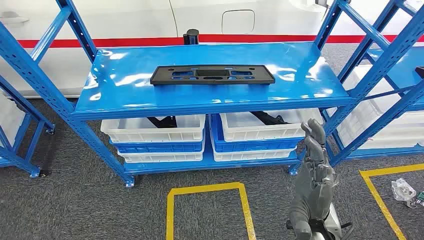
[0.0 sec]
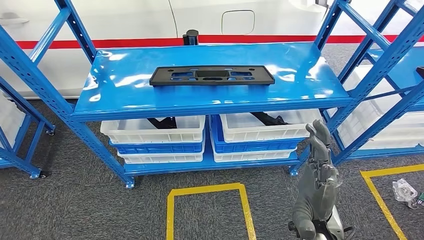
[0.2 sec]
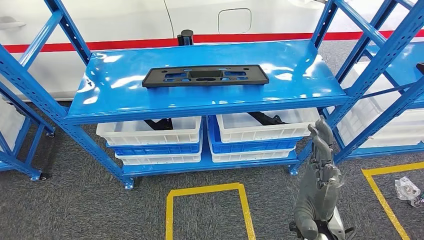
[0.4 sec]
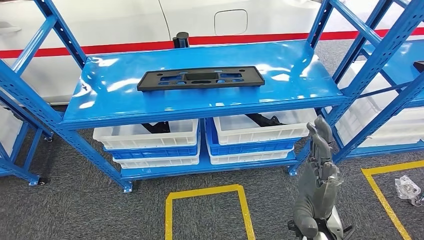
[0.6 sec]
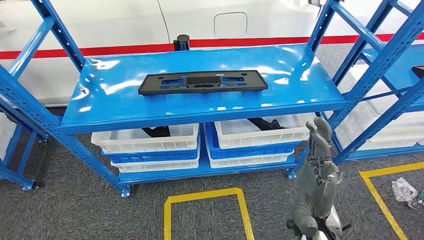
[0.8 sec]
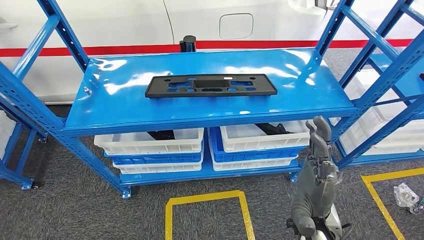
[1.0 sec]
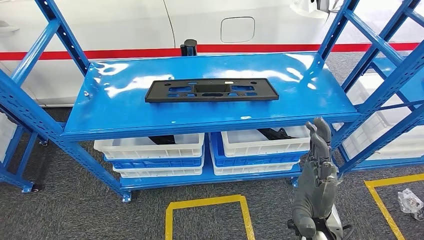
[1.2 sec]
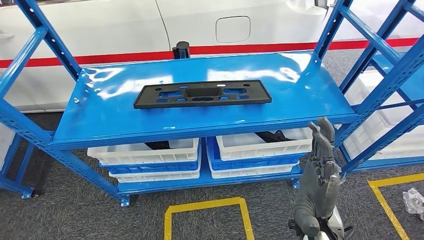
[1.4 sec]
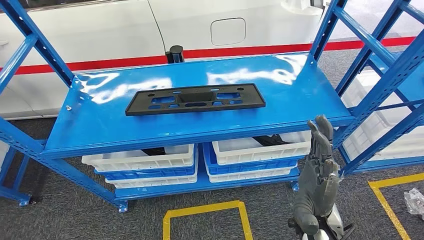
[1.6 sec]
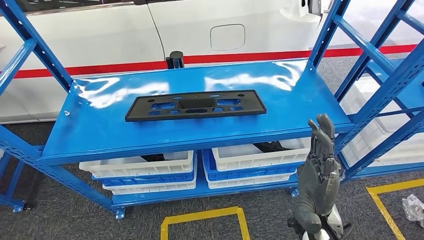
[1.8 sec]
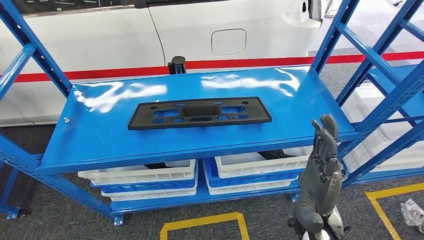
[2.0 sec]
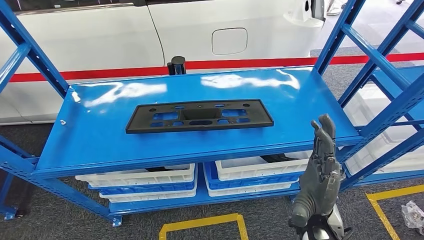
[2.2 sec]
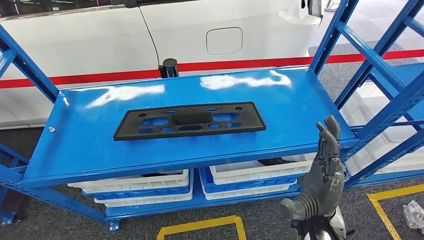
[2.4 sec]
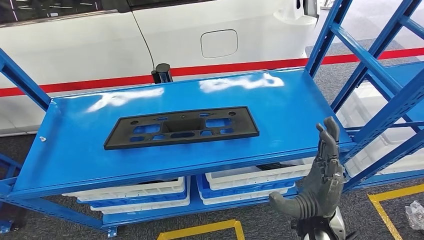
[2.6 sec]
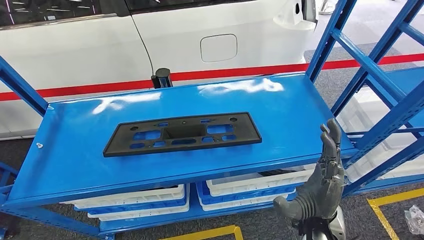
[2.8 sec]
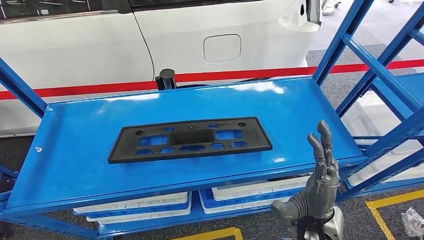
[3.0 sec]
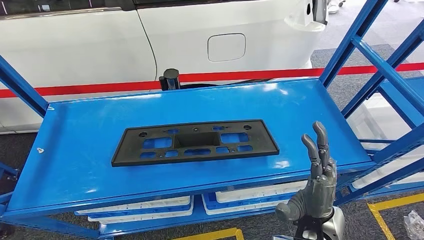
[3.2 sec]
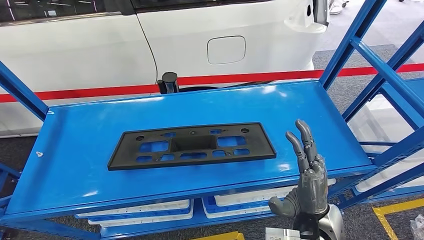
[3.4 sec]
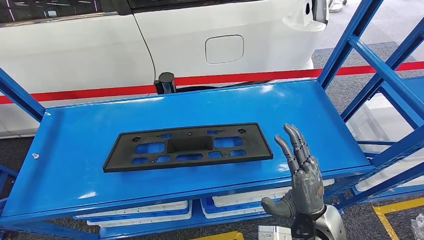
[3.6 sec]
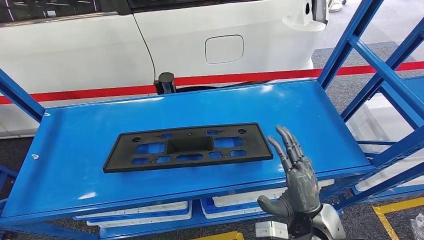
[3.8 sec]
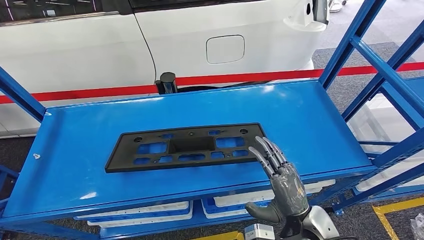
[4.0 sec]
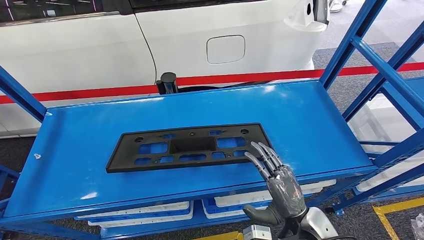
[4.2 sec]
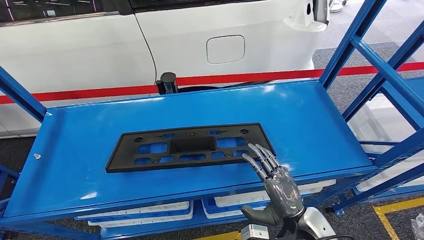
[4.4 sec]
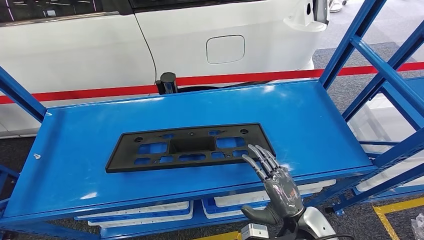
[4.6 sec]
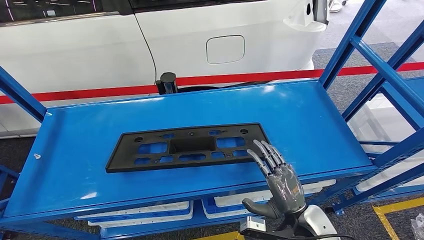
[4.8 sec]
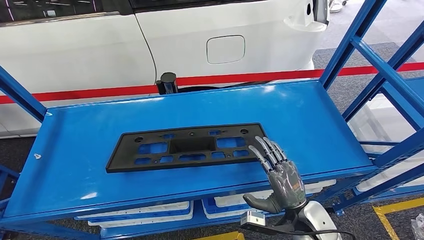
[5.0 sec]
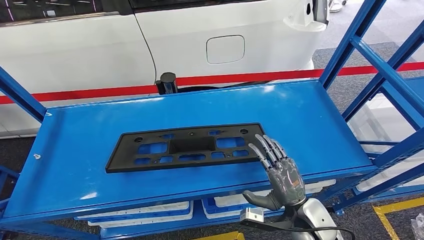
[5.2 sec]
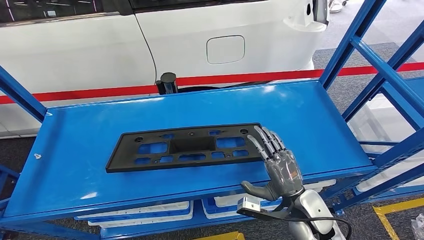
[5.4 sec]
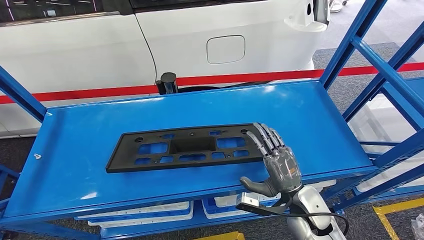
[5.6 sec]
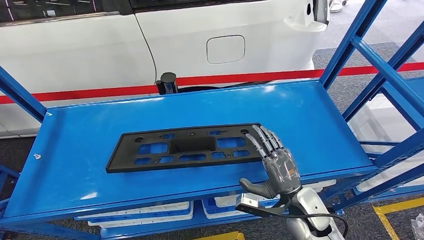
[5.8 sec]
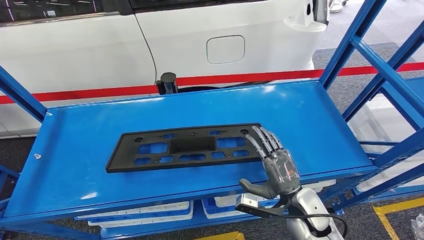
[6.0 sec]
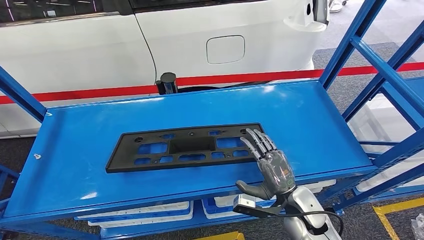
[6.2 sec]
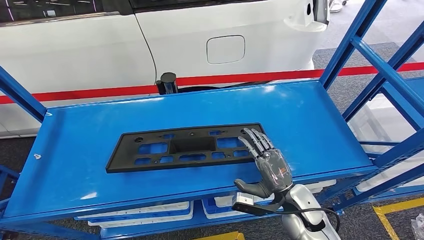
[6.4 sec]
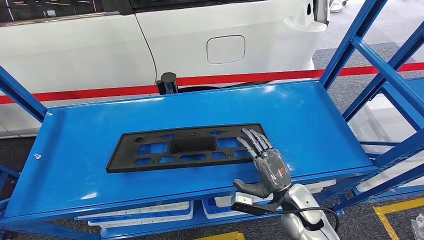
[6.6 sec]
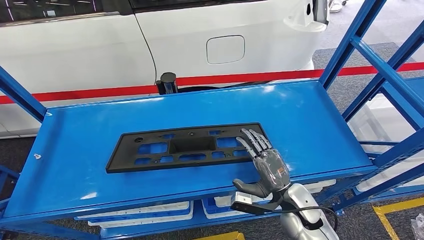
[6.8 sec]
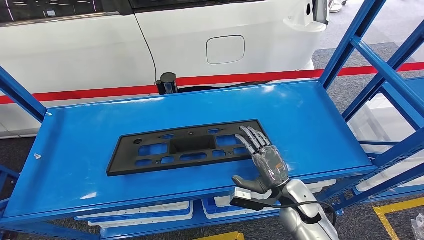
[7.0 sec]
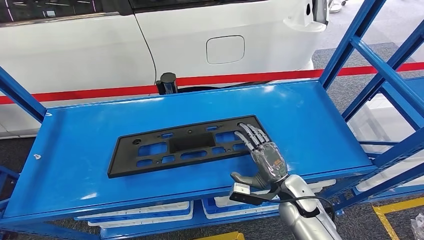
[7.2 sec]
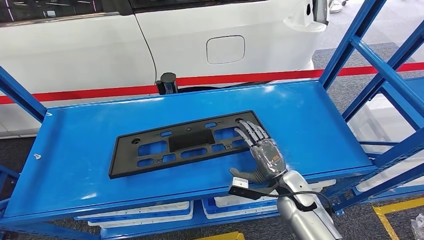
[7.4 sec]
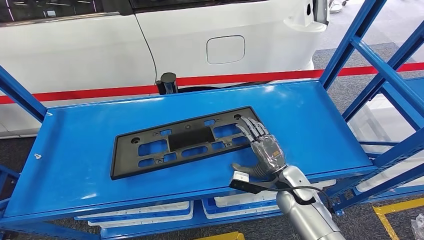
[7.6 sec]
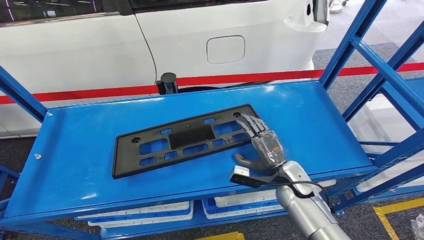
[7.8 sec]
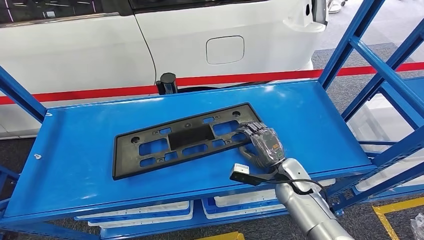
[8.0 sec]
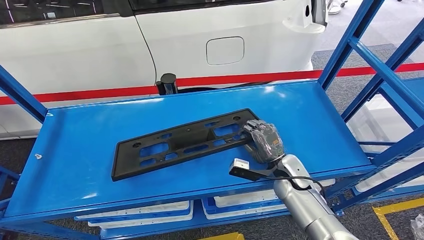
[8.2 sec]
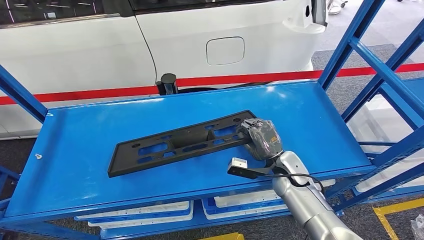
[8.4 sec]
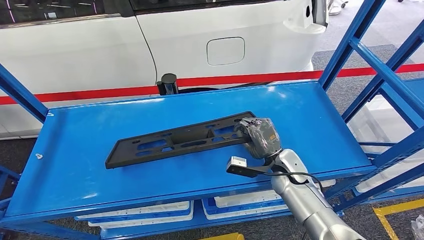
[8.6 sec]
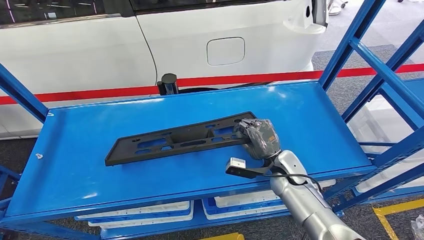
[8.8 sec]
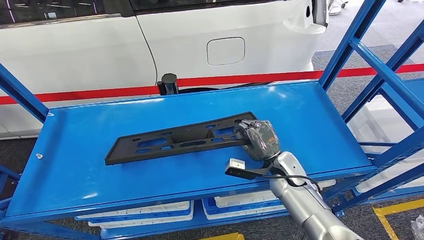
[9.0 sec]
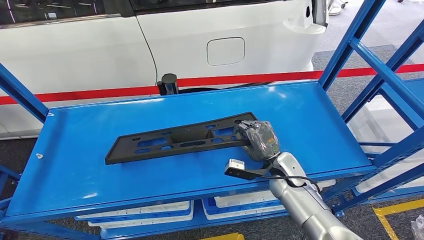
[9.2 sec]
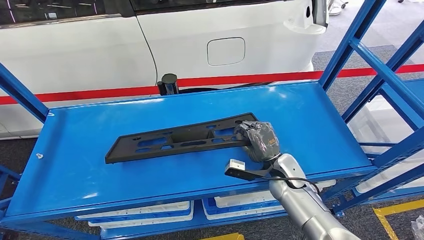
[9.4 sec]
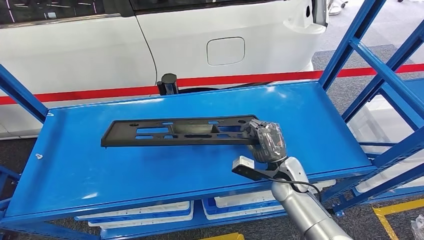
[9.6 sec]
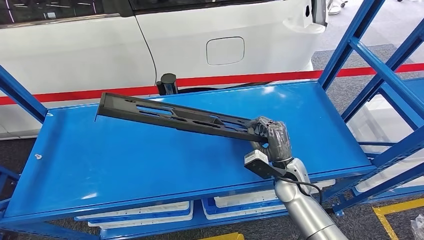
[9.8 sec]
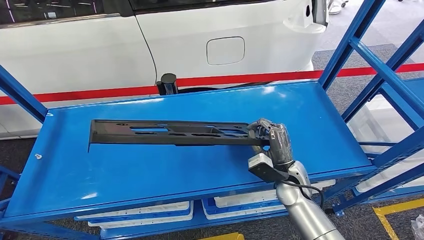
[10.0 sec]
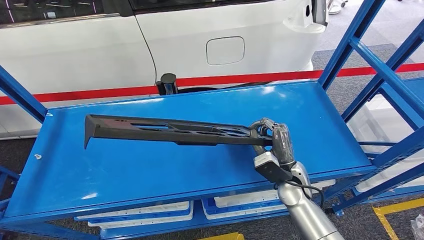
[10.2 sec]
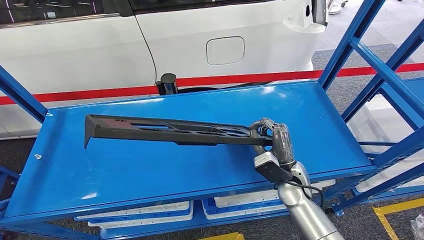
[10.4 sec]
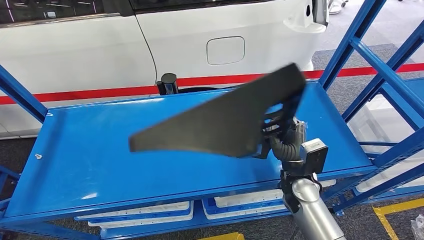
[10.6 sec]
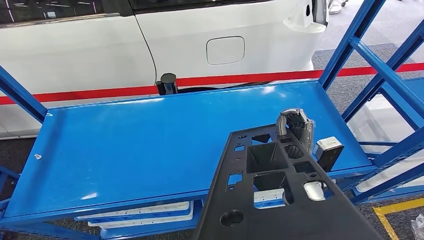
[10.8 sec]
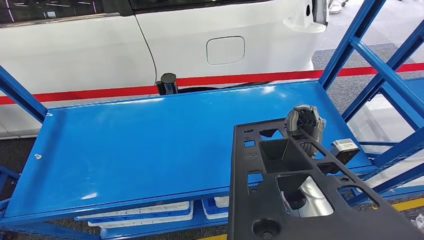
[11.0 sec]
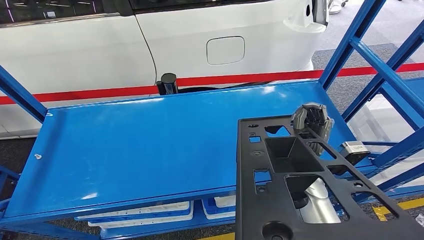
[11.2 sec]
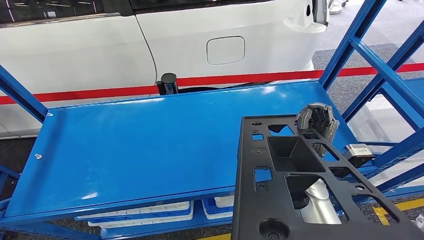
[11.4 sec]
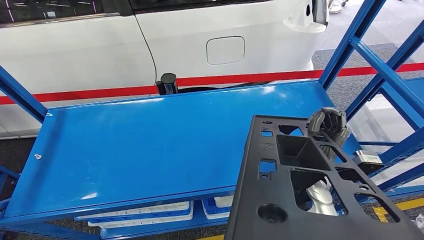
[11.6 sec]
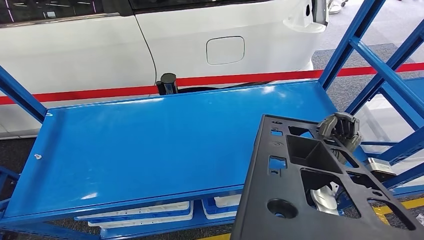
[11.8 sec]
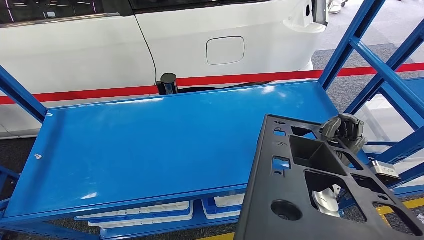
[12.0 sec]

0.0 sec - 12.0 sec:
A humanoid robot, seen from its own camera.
4.4 sec - 6.0 sec: The right hand is displaced forward by about 5 cm.
6.0 sec - 7.6 sec: The right hand shifts some 5 cm forward.
7.6 sec - 9.0 sec: The hands move only a little.
10.4 sec - 12.0 sec: The right hand shifts by approximately 5 cm.

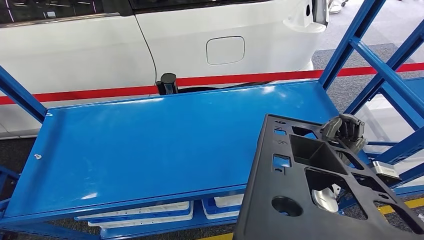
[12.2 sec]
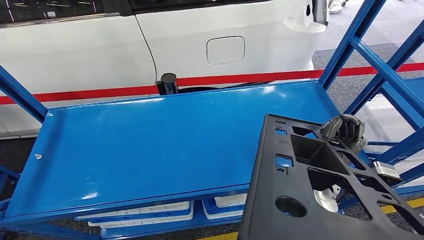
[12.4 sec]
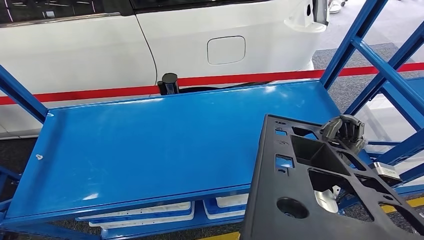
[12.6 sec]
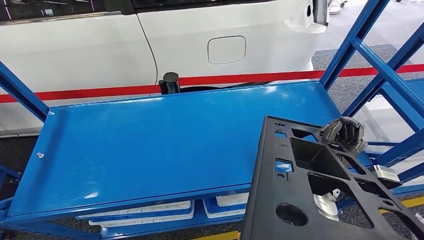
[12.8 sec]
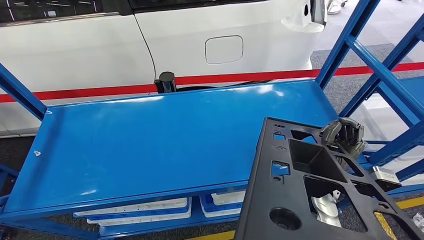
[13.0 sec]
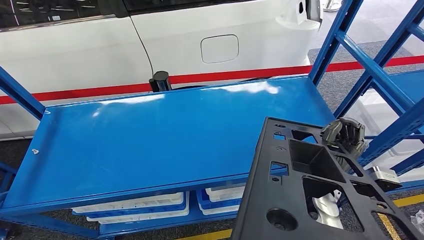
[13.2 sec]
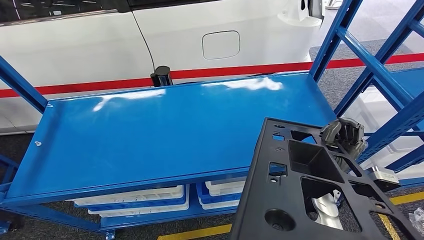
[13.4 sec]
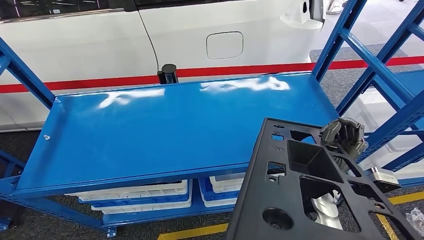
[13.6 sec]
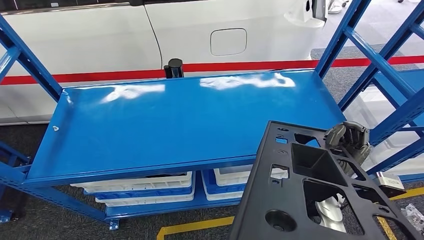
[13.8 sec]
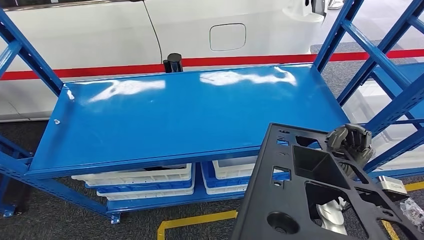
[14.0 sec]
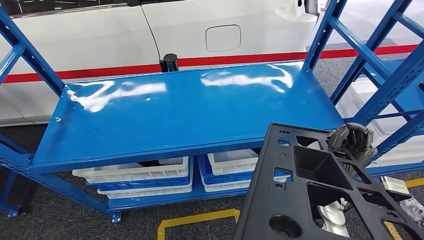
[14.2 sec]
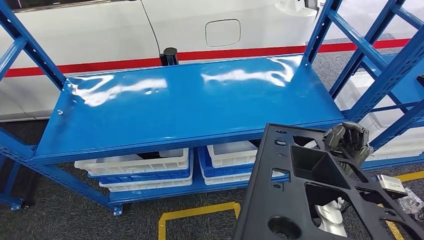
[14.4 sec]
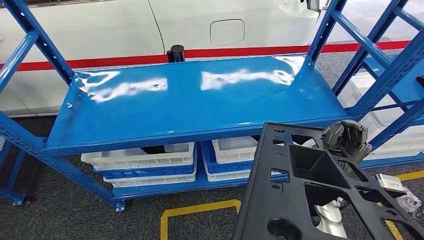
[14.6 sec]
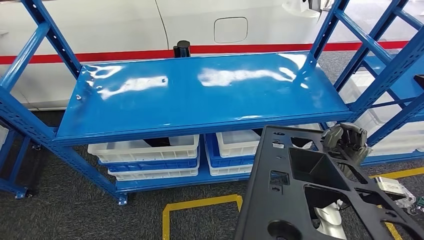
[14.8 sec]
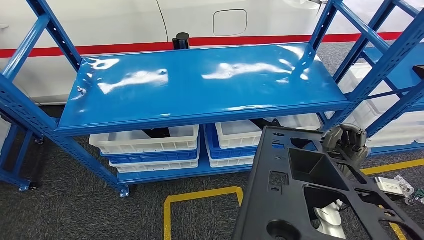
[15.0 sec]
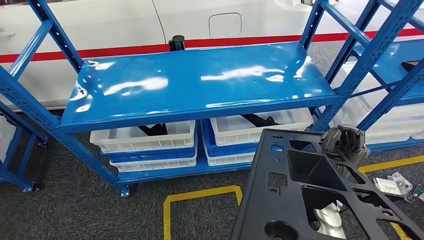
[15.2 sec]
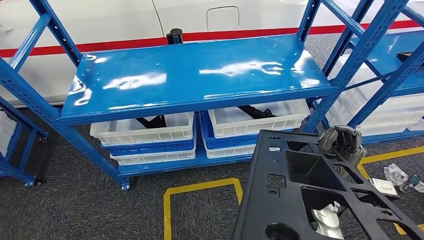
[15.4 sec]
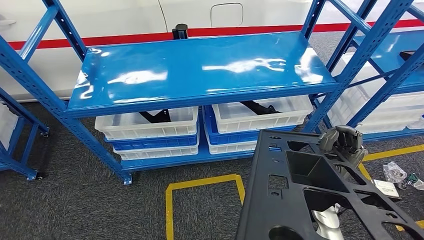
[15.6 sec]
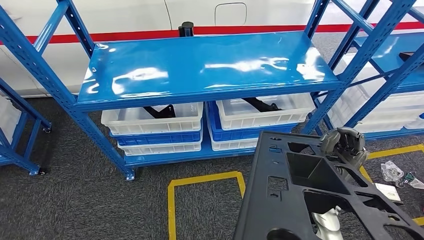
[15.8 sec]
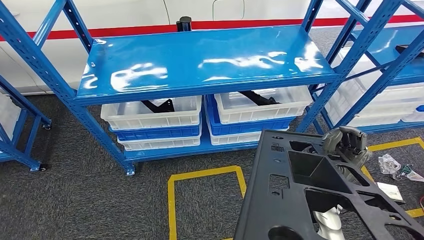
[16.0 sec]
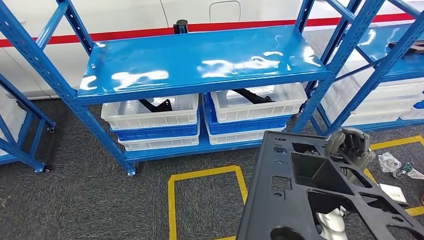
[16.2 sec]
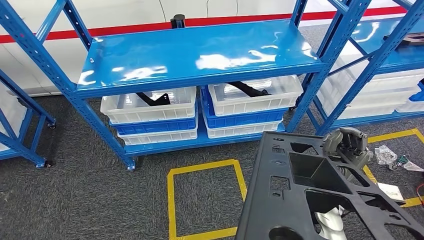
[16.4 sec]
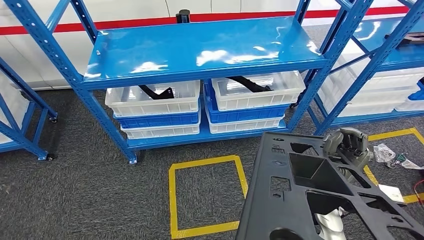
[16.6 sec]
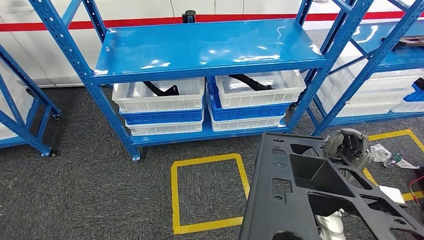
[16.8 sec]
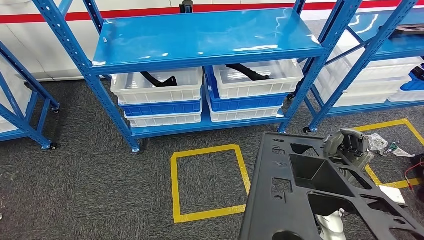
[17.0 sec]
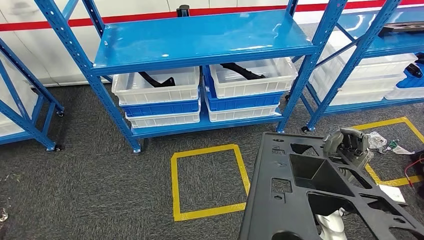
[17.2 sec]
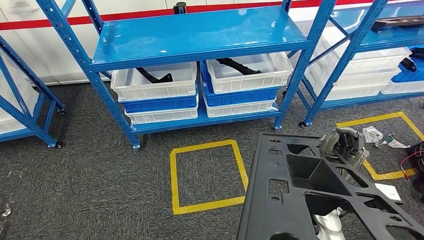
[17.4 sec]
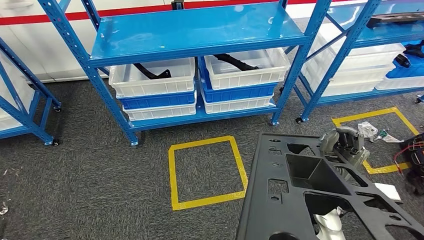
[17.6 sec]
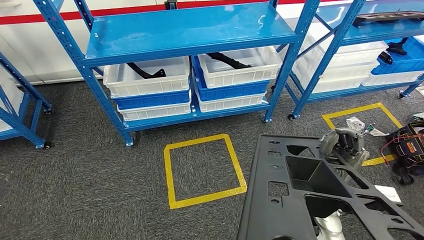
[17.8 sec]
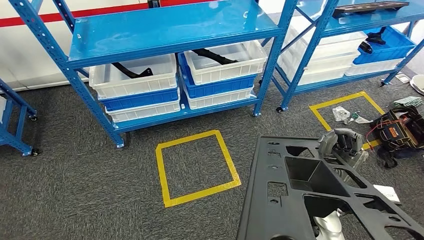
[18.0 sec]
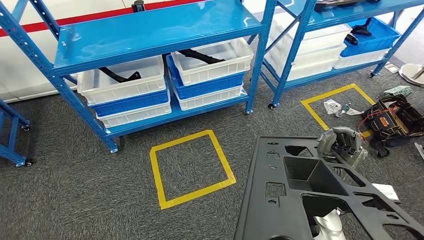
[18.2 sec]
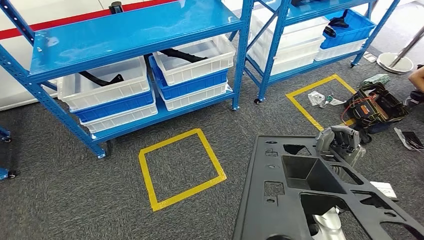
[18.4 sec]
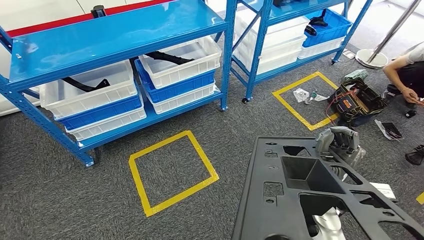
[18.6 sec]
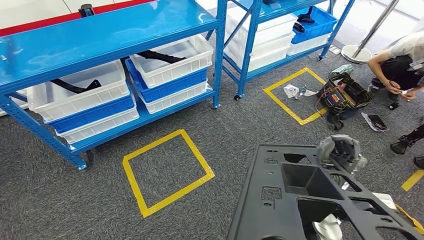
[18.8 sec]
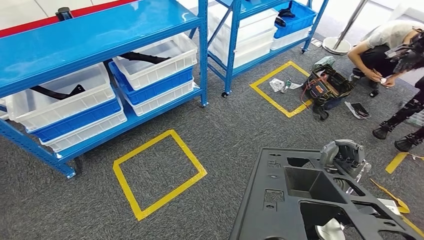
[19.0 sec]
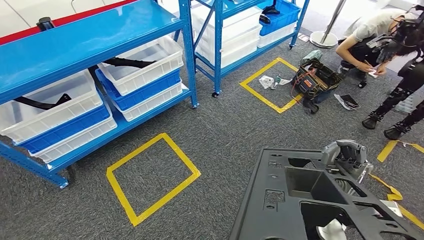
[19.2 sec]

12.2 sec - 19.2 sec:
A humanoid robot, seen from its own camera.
Step, 12.2 sec - 14.2 sec: Pick up the large material from the shelf.
